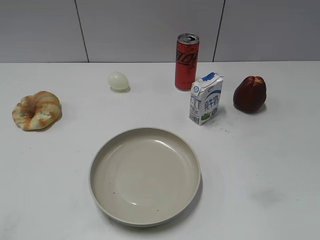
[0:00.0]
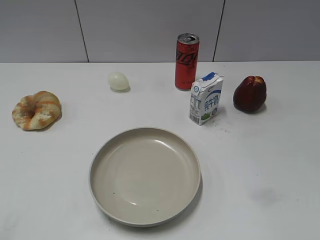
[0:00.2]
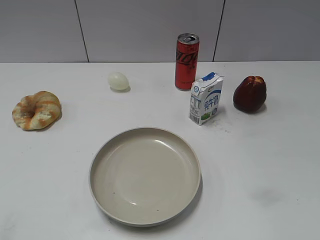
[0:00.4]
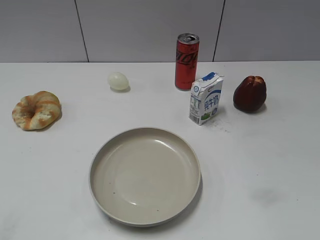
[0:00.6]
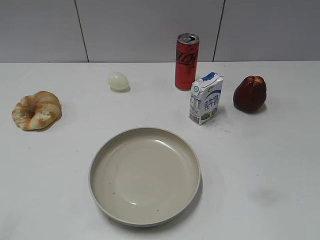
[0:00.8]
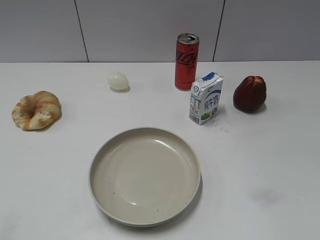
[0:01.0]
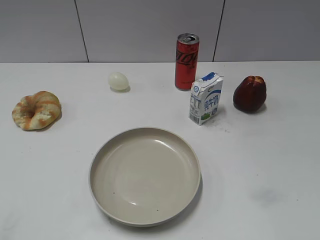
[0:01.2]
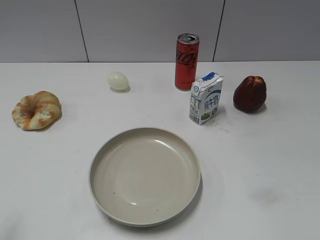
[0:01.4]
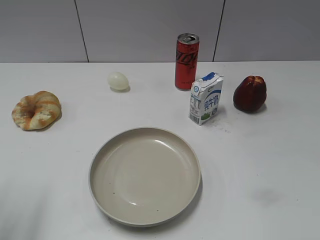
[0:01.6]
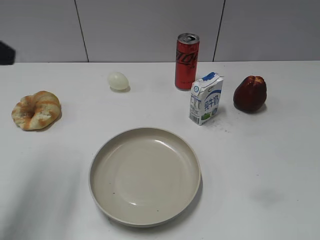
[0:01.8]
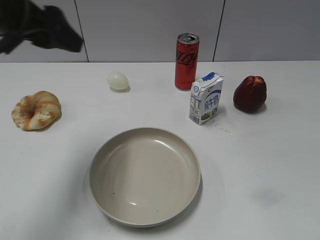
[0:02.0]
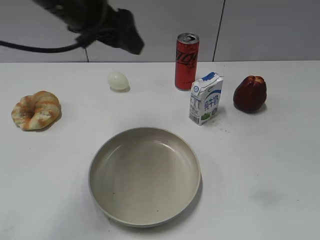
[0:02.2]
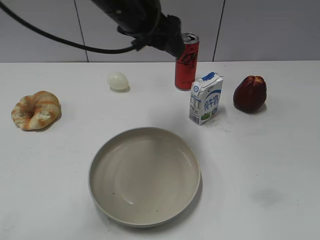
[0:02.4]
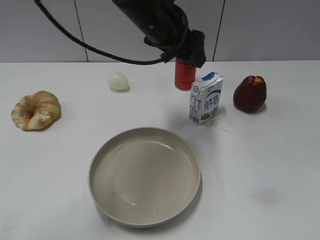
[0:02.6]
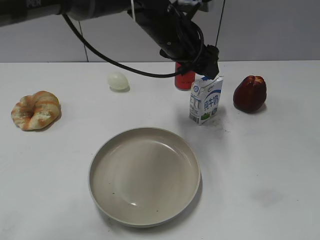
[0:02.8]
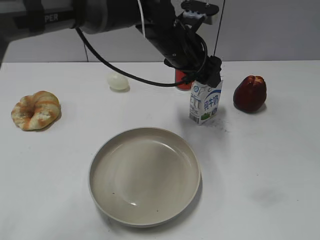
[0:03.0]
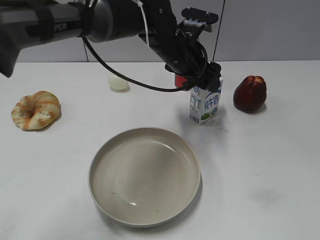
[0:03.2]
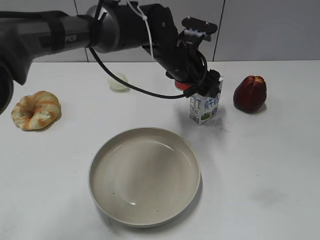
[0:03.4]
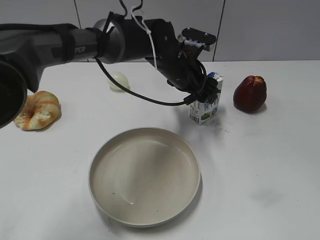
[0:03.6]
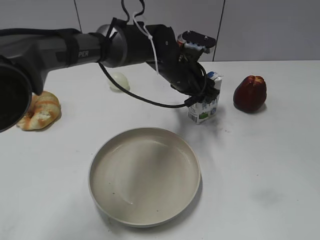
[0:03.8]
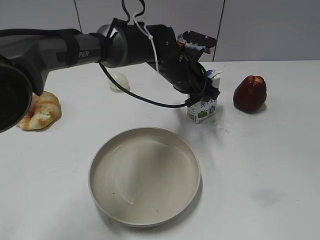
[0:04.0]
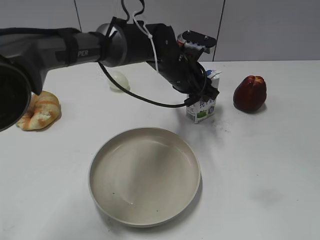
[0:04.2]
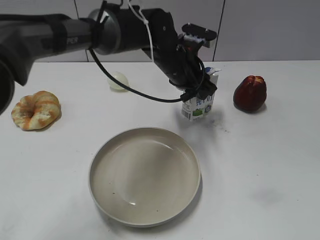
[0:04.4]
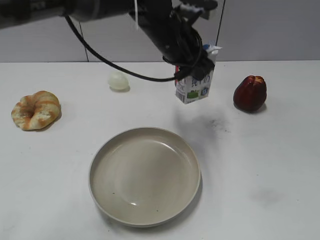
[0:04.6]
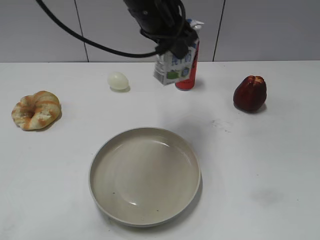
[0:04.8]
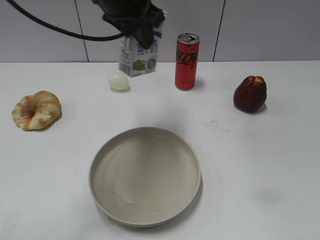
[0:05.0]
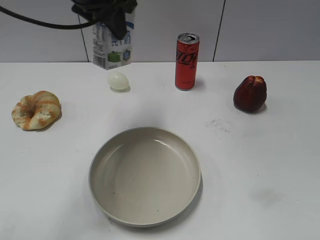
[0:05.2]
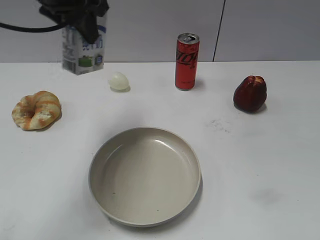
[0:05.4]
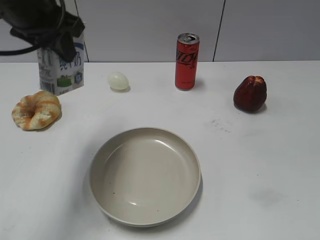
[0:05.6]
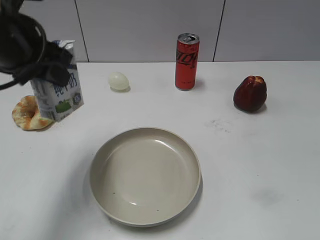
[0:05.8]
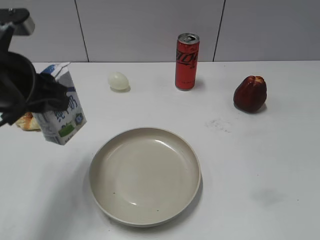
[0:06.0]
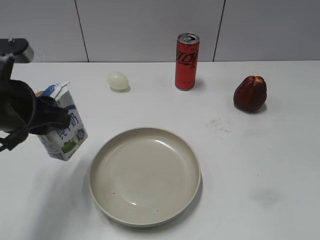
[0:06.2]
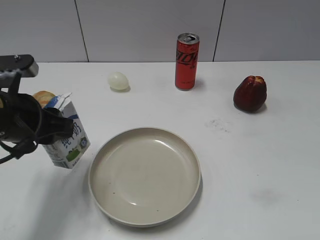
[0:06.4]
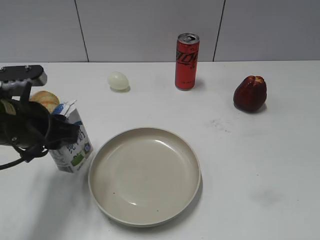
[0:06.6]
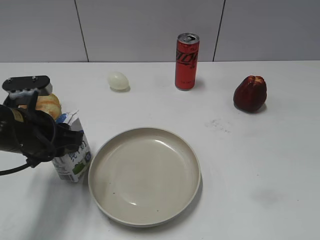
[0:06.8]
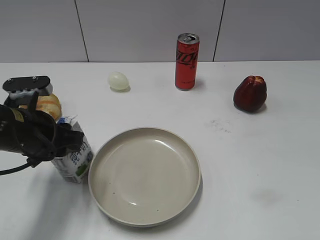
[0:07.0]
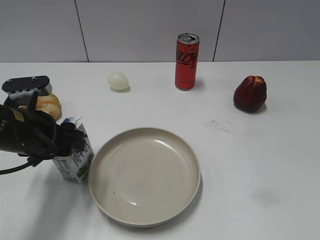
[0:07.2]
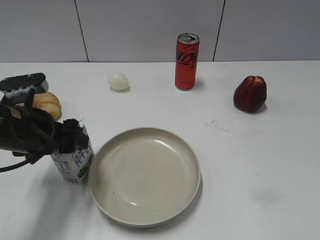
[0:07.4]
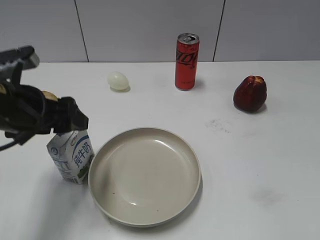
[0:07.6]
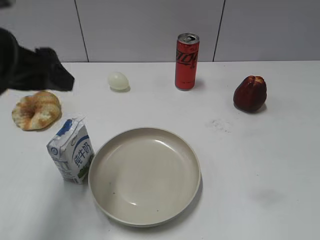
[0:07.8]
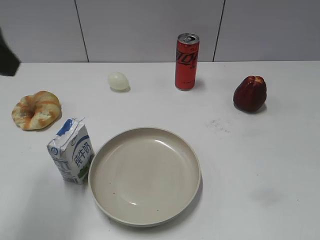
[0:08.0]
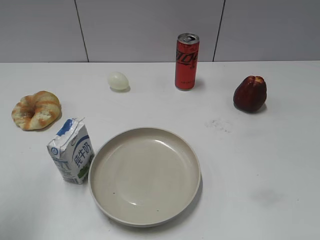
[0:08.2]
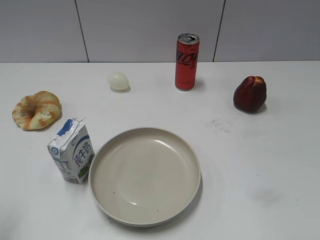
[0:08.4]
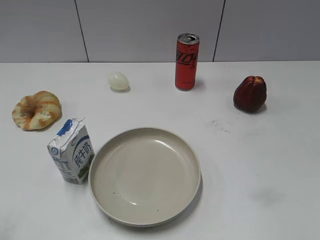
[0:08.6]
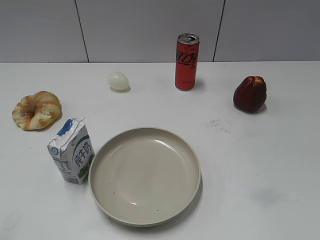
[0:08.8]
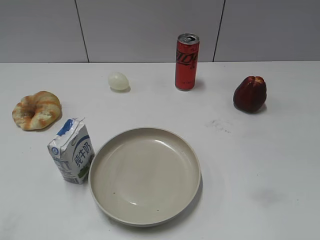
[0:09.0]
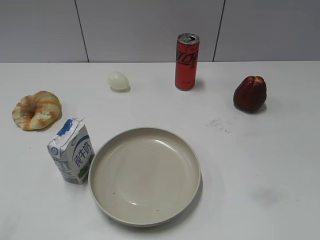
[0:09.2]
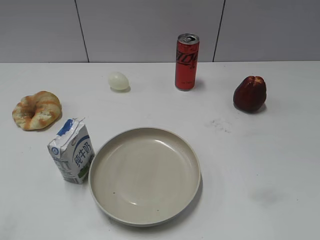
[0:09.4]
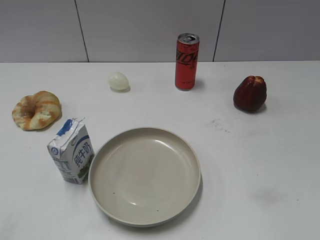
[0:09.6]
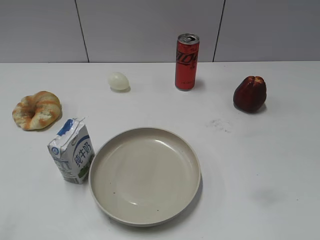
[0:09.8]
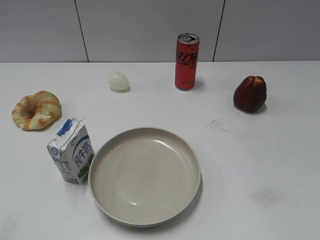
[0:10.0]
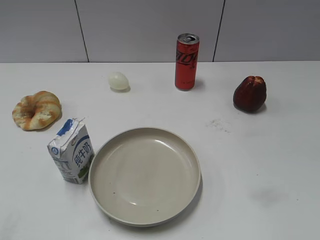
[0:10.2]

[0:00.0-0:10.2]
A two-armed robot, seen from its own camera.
Step, 0:00.8 to 0:04.2: Grasp the milk with left gripper.
Step, 0:04.4 to 0:07.6: Place the milk on the table with left gripper.
0:01.4 to 0:03.0: The left gripper is displaced to the right and forward by some 50 cm.
0:03.0 to 0:04.4: The left gripper is displaced downward by about 5 cm, and closes its fingers.
0:04.4 to 0:05.8: The left gripper moves to the left, upward and backward, some 30 cm.
0:05.8 to 0:07.2: The left gripper is displaced downward by approximately 15 cm.
0:07.2 to 0:08.8: The left gripper shifts about 25 cm backward, upward and to the left, and opens its fingers.
